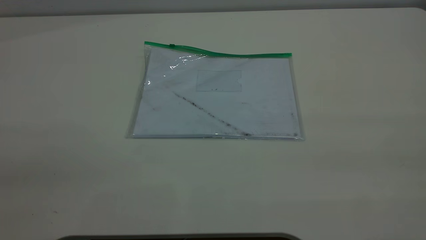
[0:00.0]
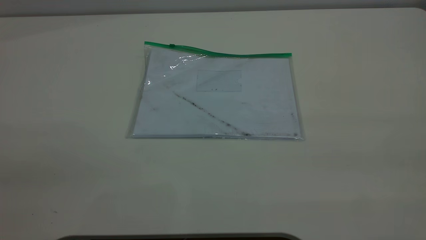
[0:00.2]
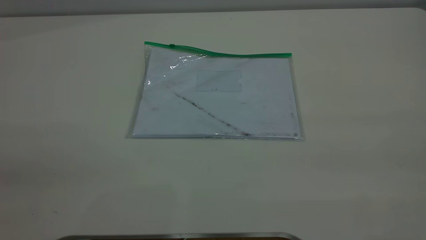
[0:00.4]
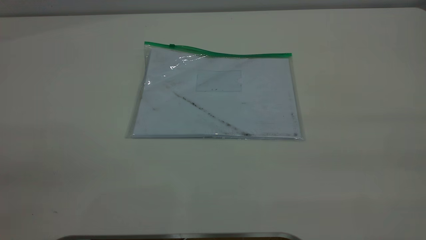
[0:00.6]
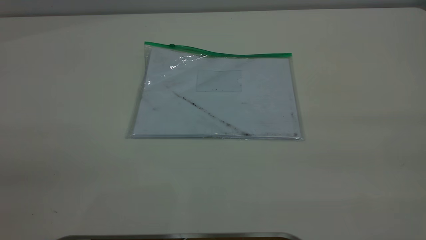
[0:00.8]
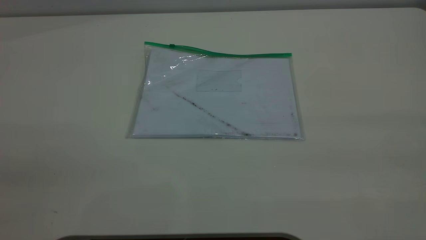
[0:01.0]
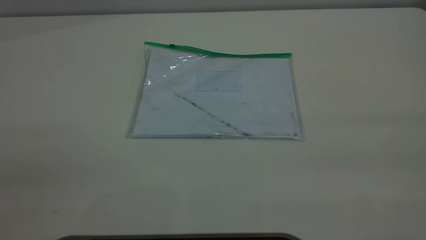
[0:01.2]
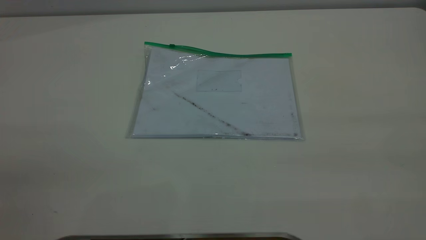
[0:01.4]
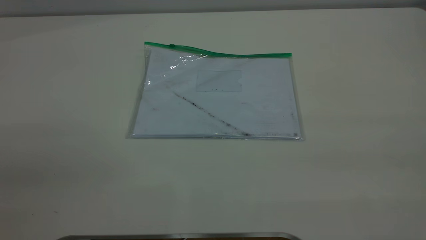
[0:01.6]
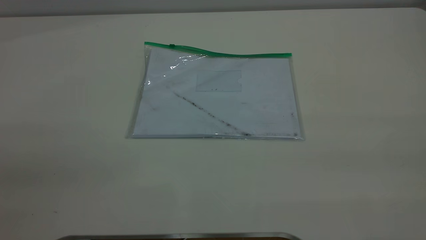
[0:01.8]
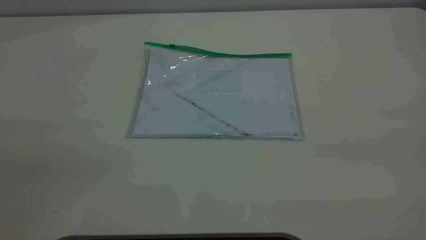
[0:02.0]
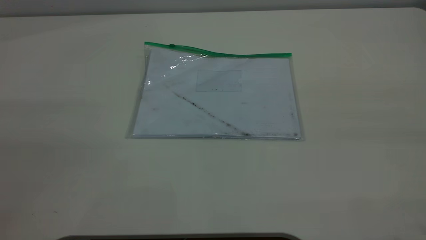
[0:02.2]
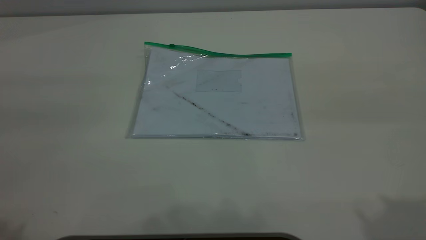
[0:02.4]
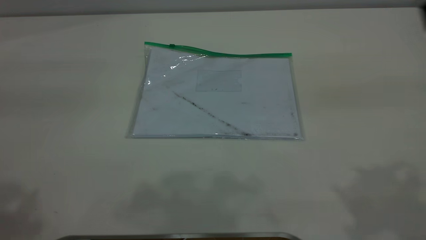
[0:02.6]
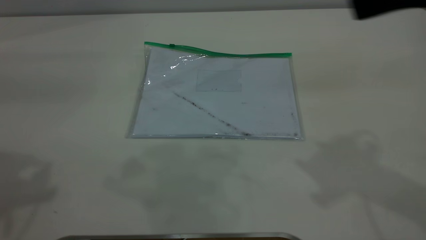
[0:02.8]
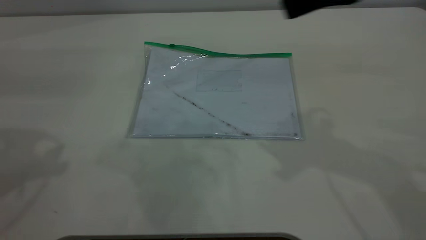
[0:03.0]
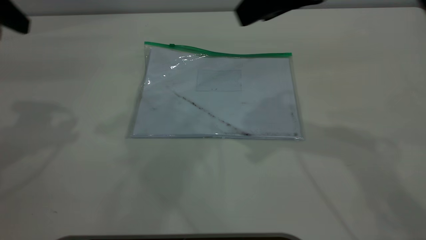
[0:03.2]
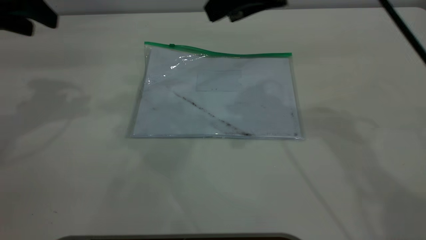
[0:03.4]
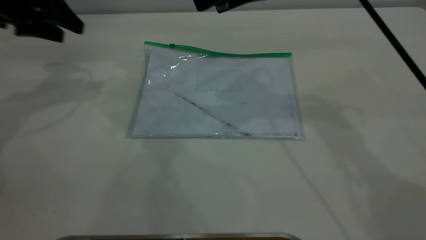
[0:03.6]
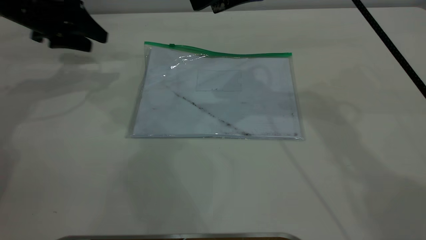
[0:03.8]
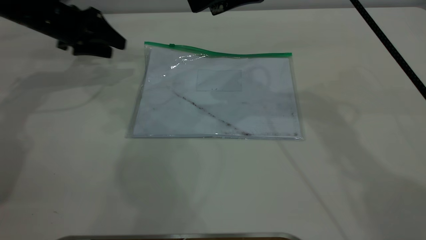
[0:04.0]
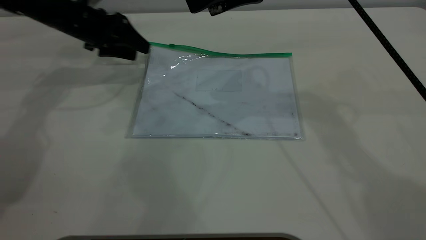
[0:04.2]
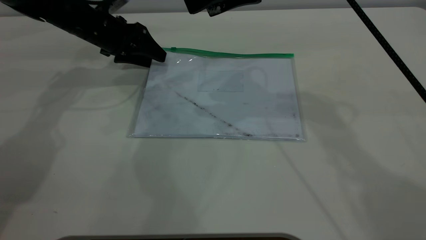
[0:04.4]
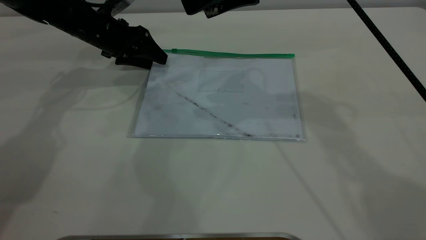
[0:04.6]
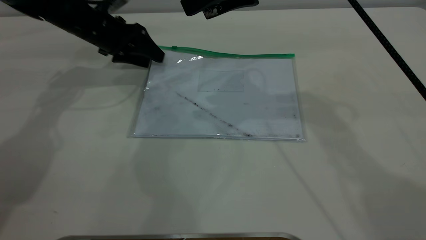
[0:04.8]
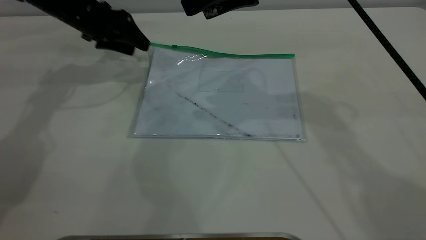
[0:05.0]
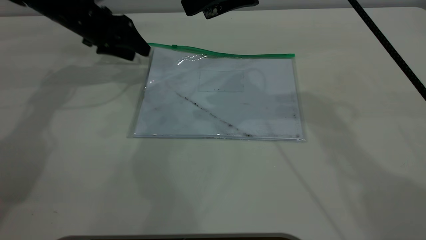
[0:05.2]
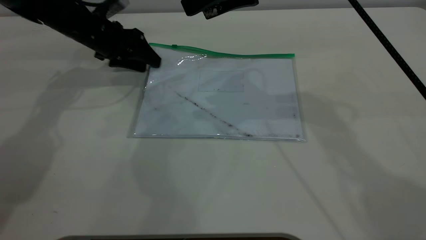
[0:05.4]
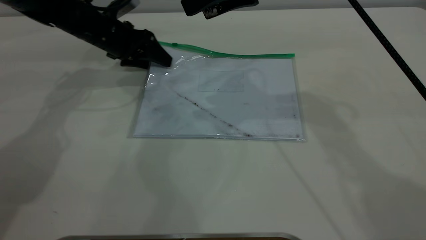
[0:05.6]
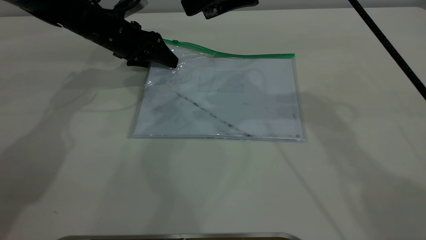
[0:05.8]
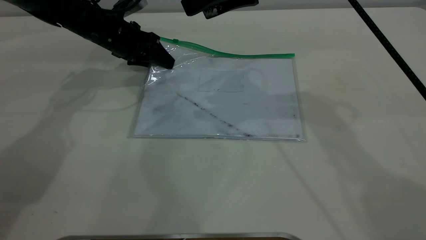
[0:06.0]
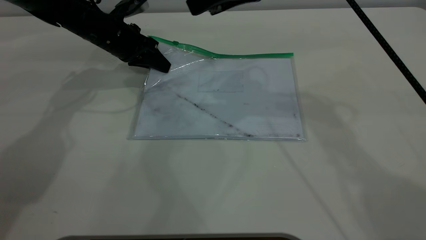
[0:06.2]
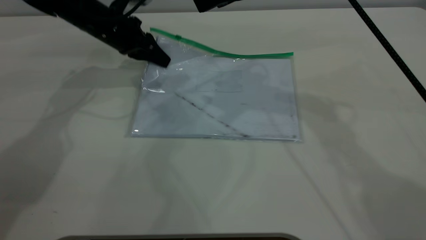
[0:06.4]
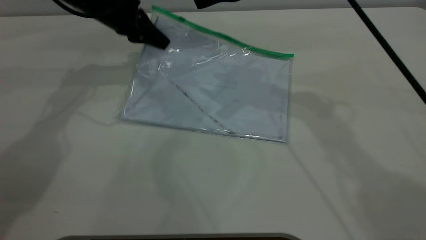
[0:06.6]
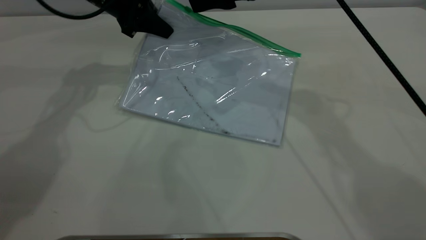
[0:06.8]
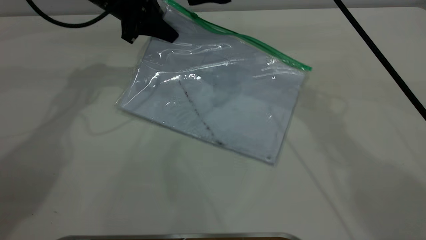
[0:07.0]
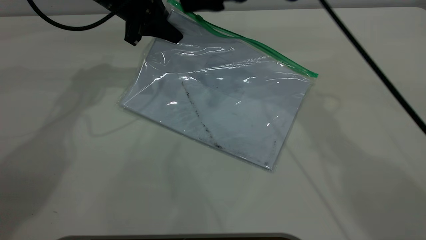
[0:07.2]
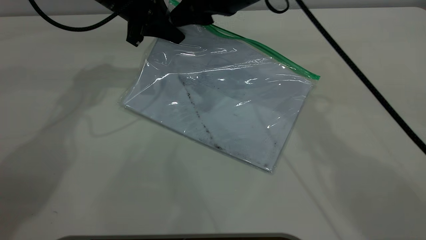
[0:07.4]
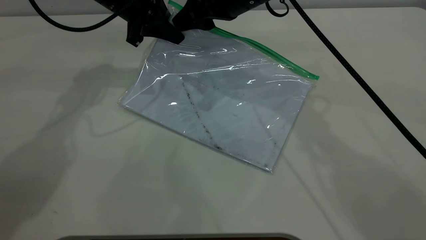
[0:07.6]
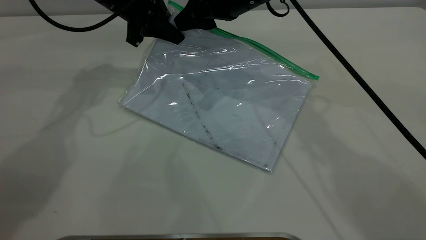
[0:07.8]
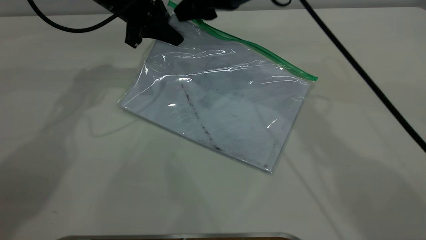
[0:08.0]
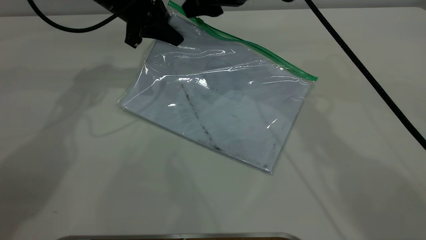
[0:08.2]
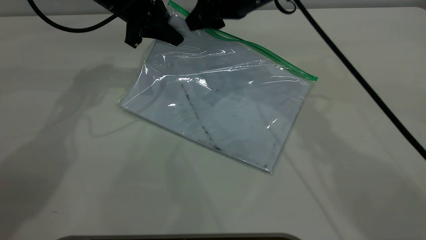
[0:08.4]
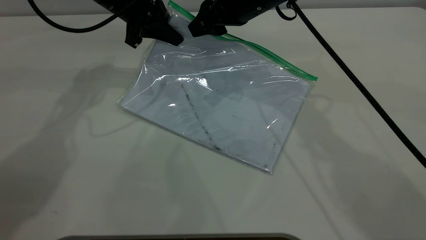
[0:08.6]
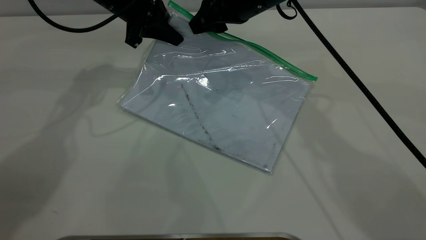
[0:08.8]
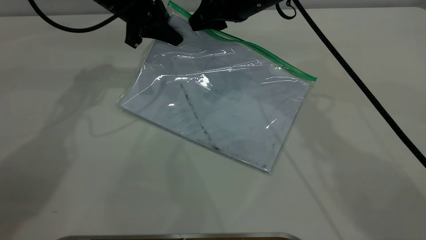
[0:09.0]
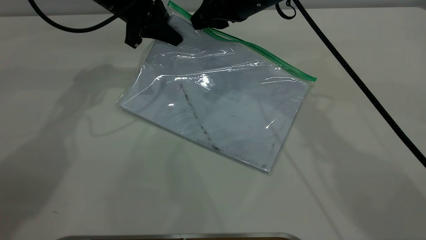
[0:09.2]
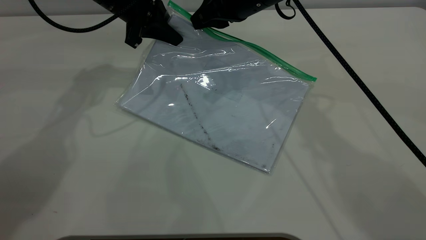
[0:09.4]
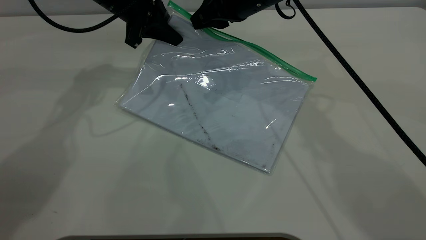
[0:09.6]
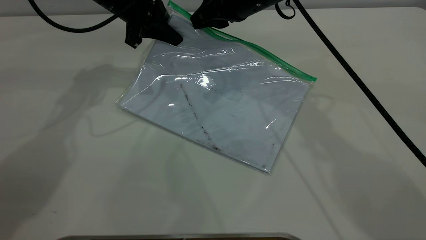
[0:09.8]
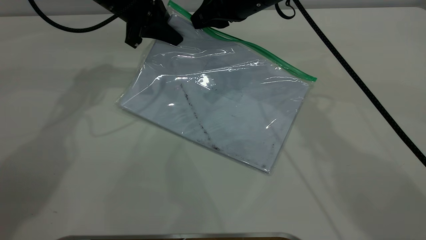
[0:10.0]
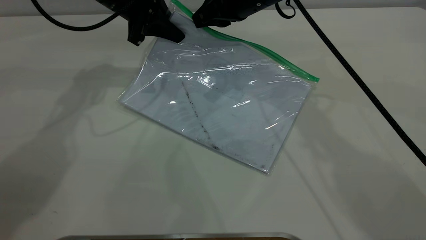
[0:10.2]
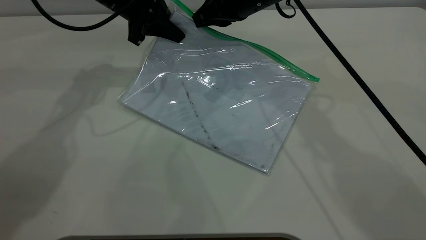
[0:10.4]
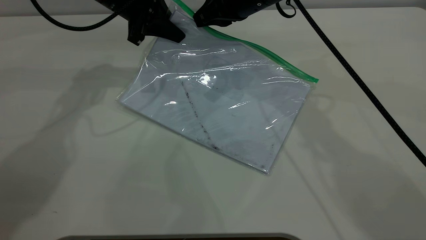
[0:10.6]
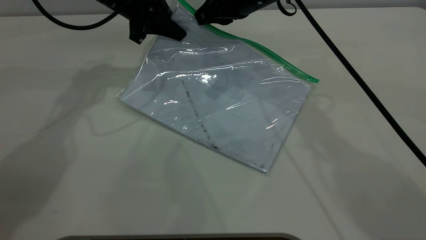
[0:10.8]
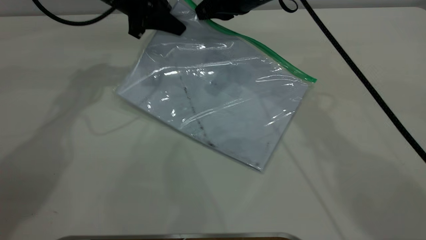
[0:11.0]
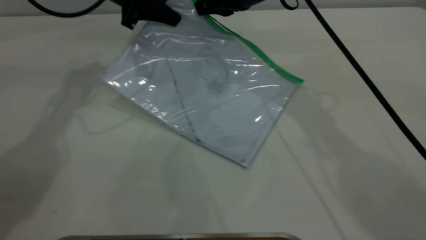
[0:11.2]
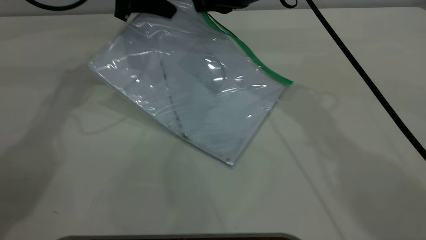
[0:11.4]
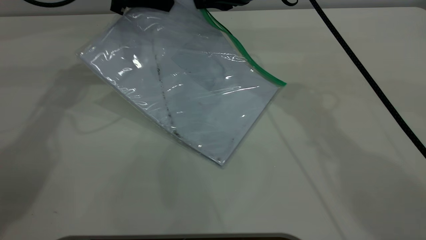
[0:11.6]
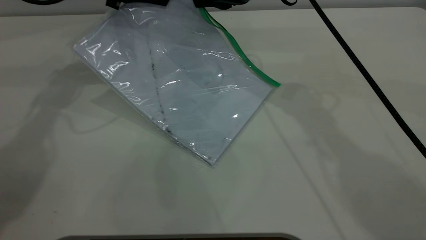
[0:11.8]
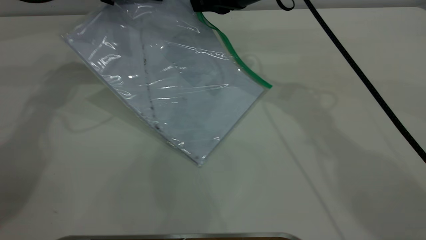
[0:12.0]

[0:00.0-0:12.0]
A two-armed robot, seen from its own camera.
Step, 0:00.0 to 0:06.4: Pick up the transparent plastic bag with the left gripper.
0:00.0 to 0:01.6: Both grippers stay about where they are.
0:01.6 to 0:03.0: The right gripper shifts approximately 35 cm forward and to the left.
0:03.0 to 0:04.4: The right gripper is displaced forward and to the left by roughly 15 cm; the left gripper is displaced forward and downward by some 30 cm.
0:04.4 to 0:06.0: The left gripper closes up.
0:06.0 to 0:07.6: The right gripper travels downward by approximately 5 cm. Meanwhile the left gripper moves upward, some 10 cm, and closes its fingers.
0:07.6 to 0:09.0: The grippers stay close to where they were, moving slightly.
0:09.0 to 0:10.4: The right gripper closes up.
0:10.4 to 0:12.0: The left gripper moves about 5 cm.

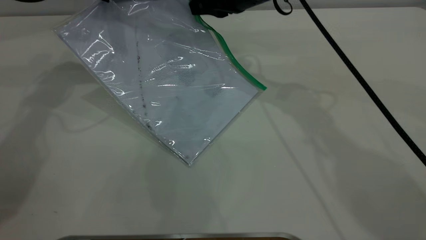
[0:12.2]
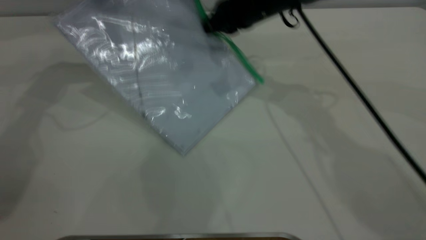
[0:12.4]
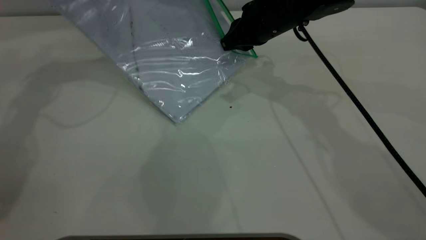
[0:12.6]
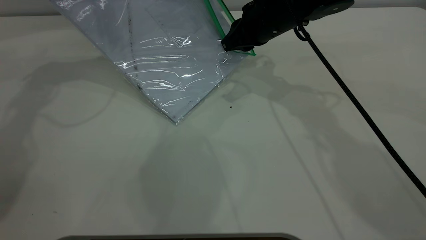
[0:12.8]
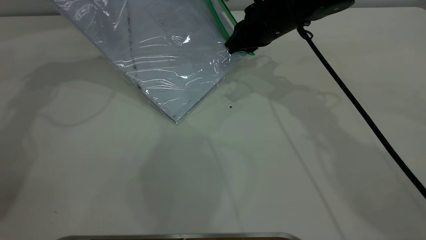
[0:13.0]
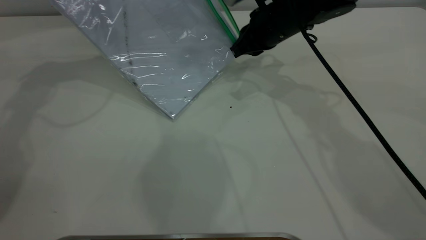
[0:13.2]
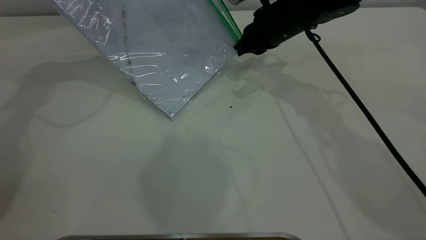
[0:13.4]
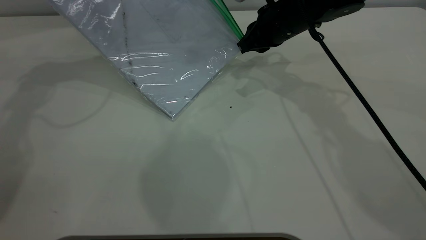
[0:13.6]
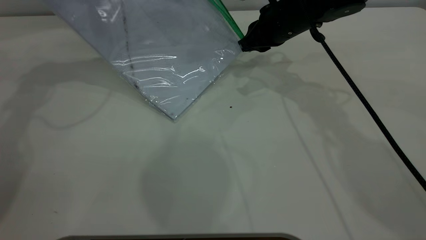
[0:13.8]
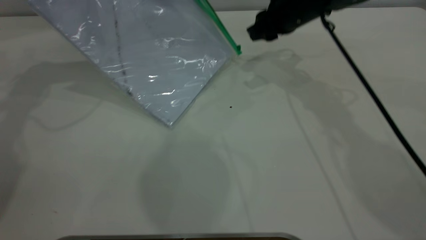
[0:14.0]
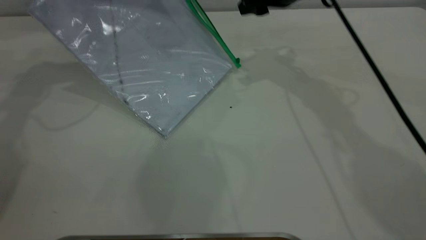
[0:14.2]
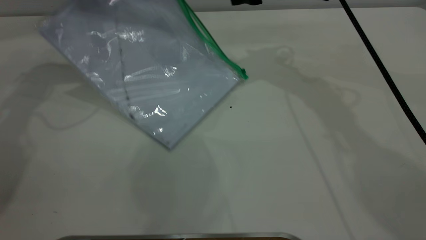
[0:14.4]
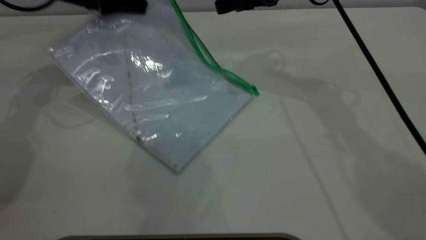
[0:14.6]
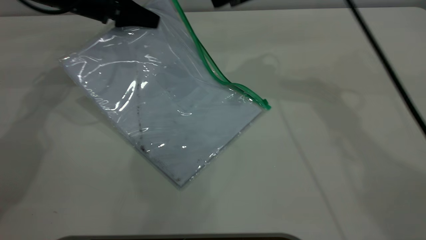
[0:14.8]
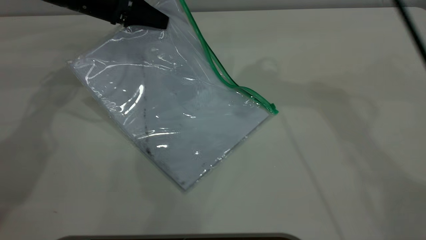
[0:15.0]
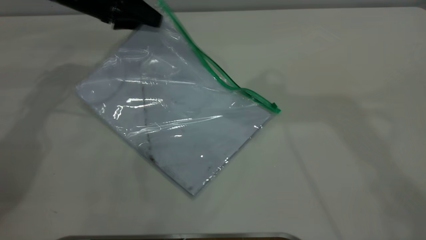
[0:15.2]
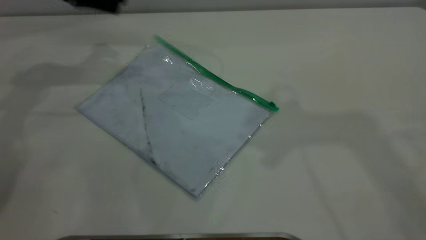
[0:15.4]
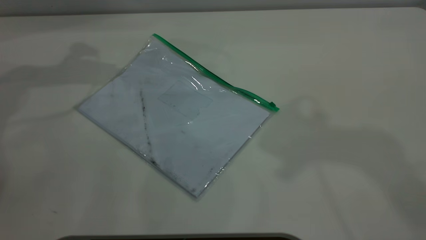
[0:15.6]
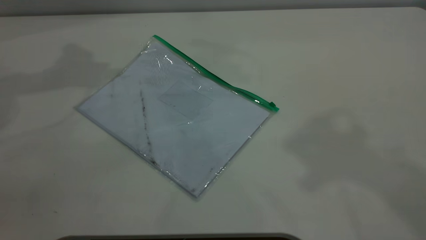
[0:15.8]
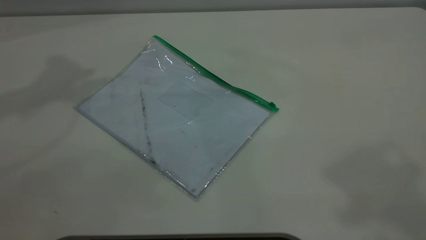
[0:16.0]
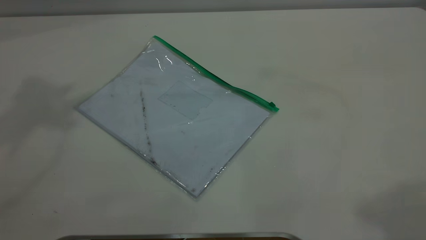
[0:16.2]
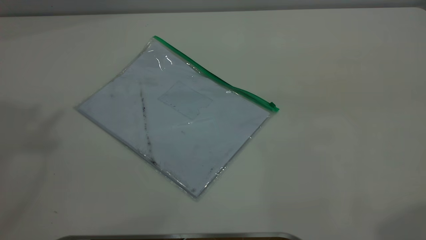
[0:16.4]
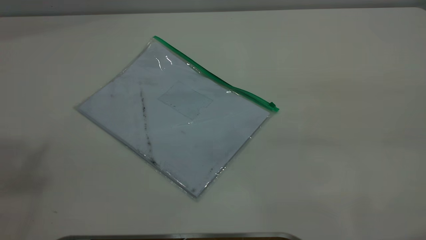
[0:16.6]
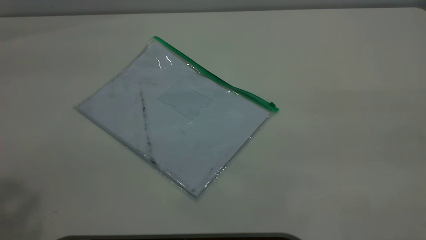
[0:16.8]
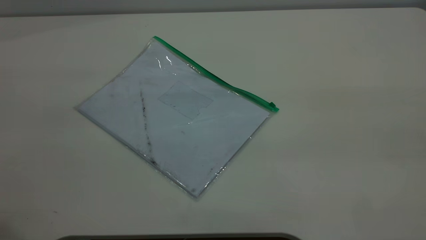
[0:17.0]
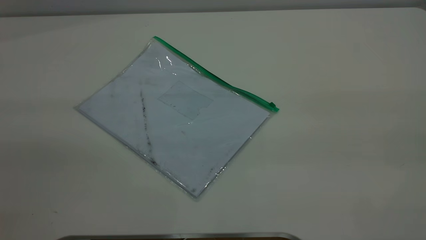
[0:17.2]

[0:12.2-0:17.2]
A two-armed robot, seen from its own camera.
Step, 0:14.0 to 0:15.2: Place the transparent plastic bag.
0:12.2 to 0:13.8: The left gripper moves about 5 cm, while the right gripper moves to the right, about 5 cm.
0:13.8 to 0:15.6: The left gripper travels downward and back again, some 10 cm each way, and opens up, while the right gripper goes roughly 40 cm upward and backward, and opens up.
0:15.6 to 0:17.2: The right gripper shifts about 30 cm backward, downward and to the right.
